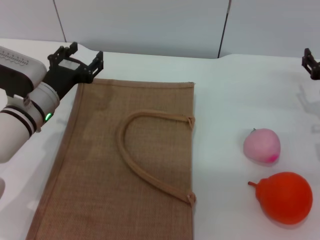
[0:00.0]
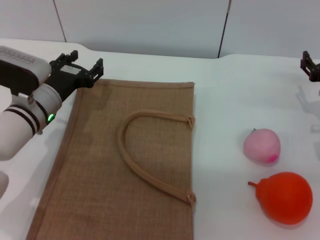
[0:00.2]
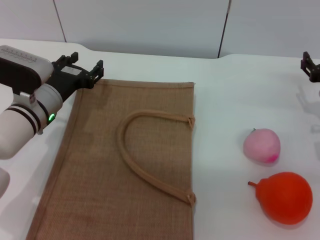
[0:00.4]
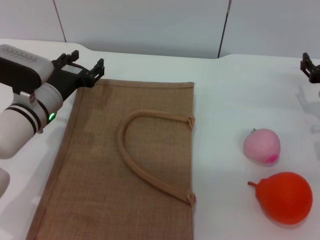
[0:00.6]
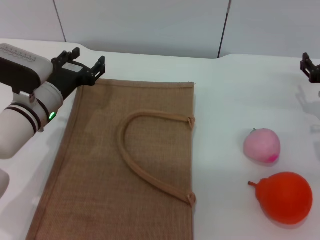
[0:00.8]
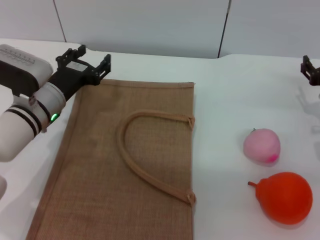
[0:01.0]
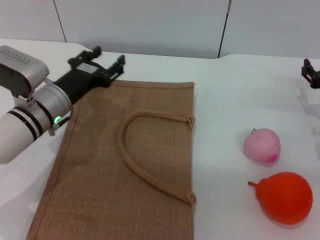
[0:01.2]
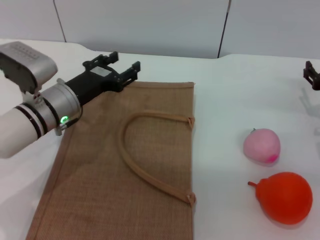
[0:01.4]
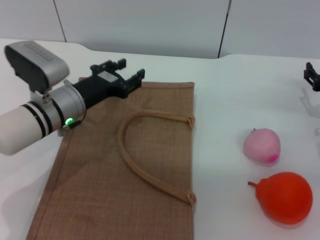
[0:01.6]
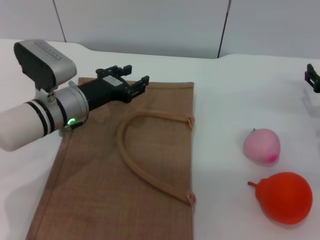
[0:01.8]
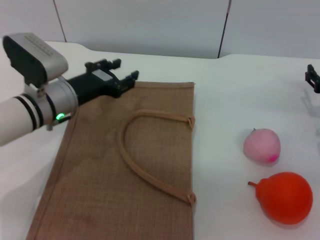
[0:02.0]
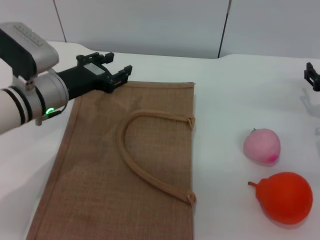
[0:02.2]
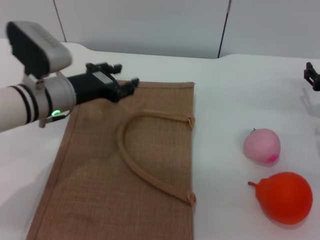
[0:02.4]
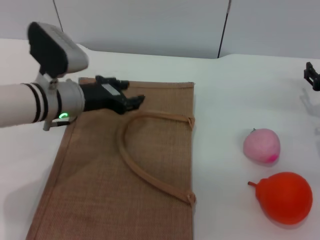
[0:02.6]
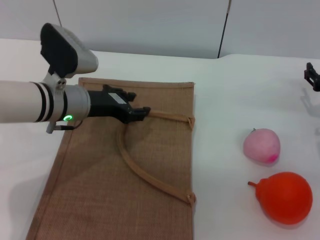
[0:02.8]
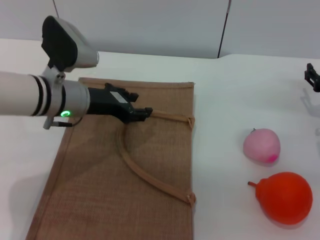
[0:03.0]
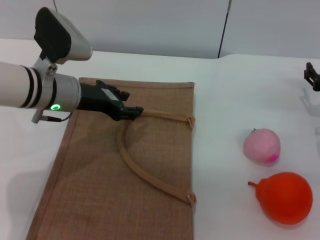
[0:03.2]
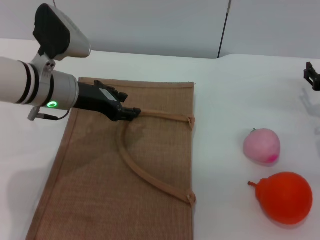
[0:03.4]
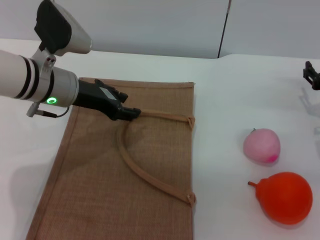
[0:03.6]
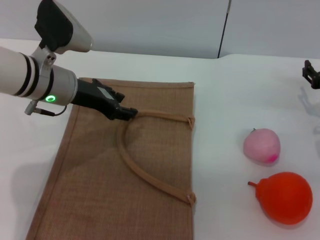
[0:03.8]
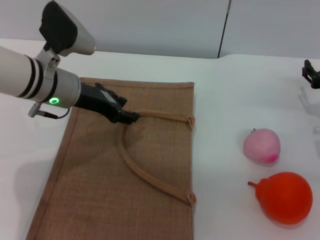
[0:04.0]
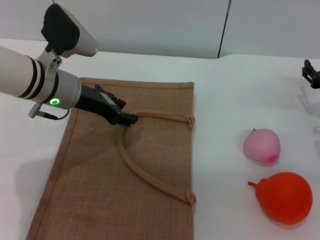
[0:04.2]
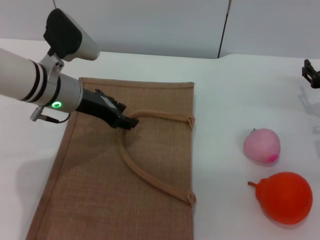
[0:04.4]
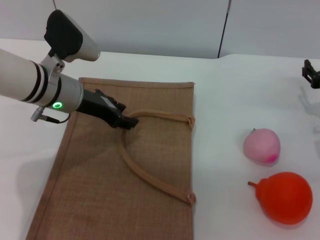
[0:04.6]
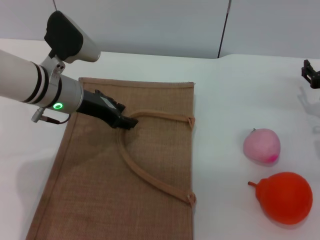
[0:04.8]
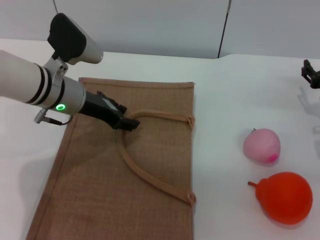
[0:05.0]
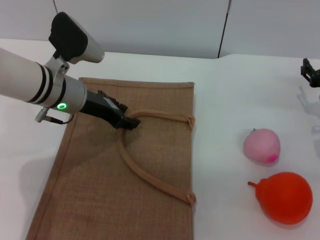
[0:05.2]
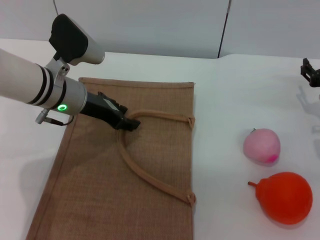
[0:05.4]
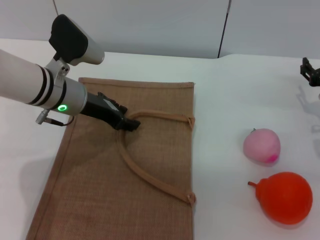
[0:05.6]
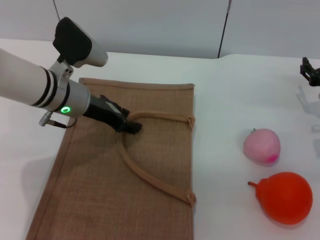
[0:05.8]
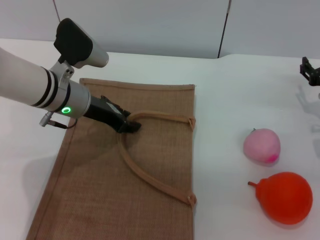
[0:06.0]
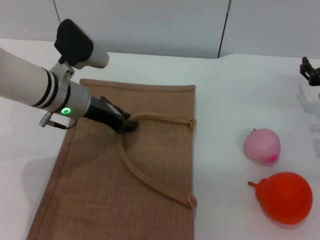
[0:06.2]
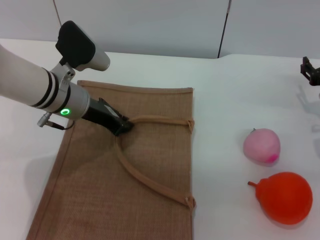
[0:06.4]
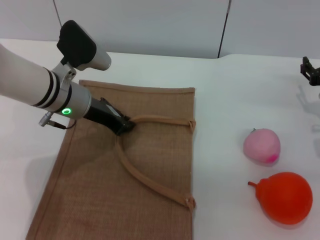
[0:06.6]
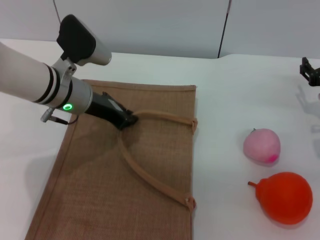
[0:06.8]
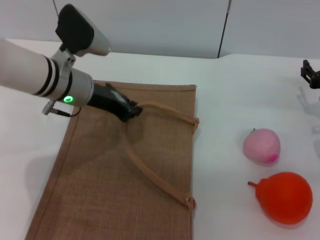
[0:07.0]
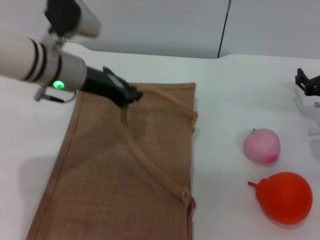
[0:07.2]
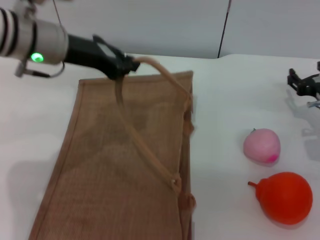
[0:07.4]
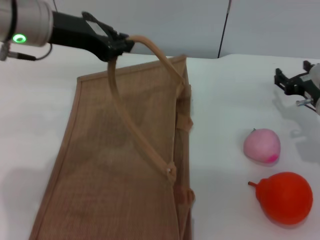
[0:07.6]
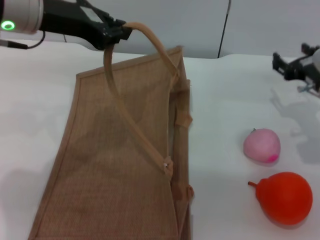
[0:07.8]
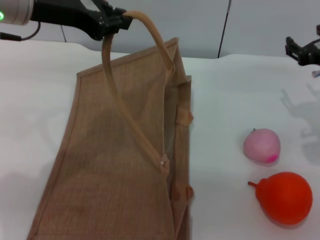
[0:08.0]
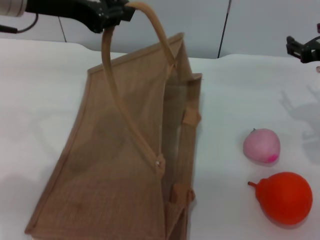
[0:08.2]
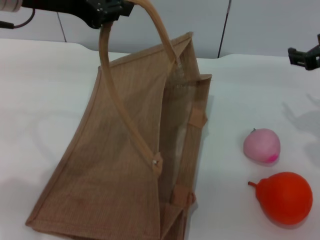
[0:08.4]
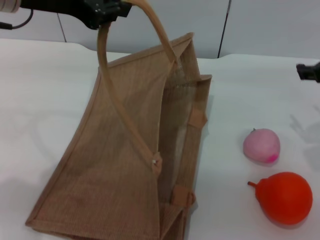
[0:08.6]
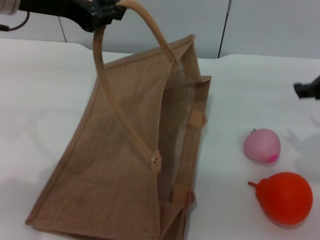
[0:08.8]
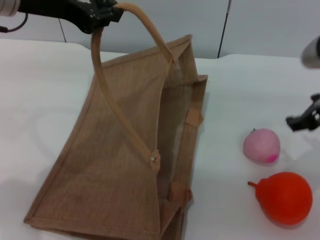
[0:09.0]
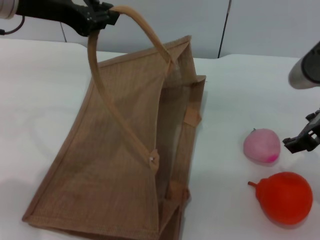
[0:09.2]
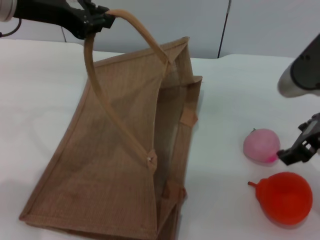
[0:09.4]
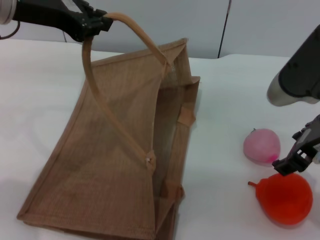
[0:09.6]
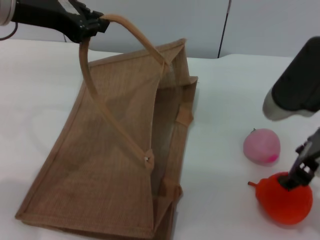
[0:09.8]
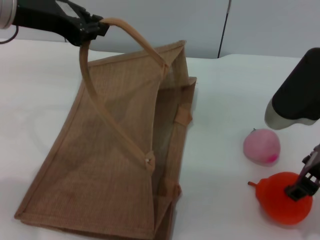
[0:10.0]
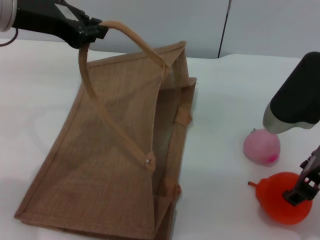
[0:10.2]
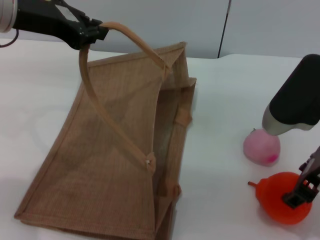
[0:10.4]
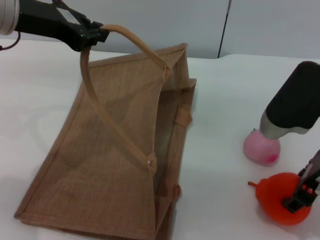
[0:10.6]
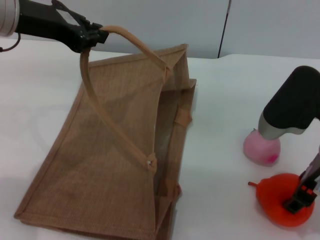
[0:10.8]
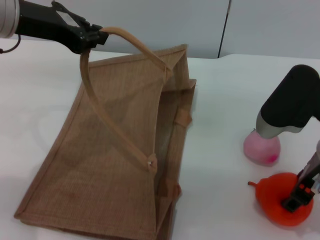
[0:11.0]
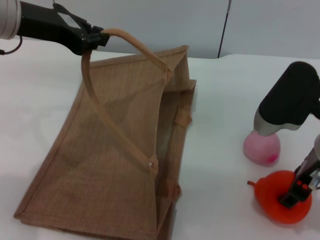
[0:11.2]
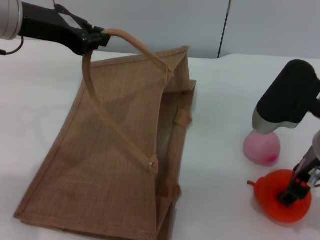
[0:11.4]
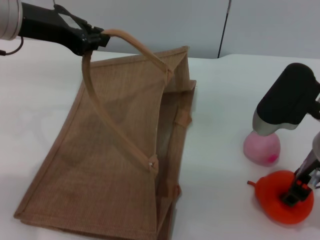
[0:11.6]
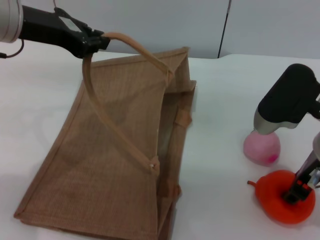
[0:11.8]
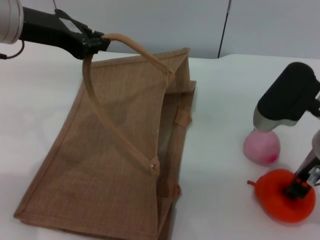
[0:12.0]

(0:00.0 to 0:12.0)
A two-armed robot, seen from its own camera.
Task of the whole recording: pick up the orange and peach from the table and place it in the brown handbag.
Step, 0:00.0 - 0:07.6: Lift the woven bag with the left gripper to open it.
0:03.0 - 0:06.0: The grippers move only a little.
0:06.0 - 0:07.6: The left gripper travels upward by roughly 15 cm, and closes.
0:07.6 - 0:09.0: The left gripper ends up roughly 5 cm from where it was, while the right gripper travels upward and backward by roughly 15 cm.
0:09.0 - 0:10.4: The right gripper ends up about 5 cm from where it was.
0:10.4 - 0:12.0: The grippers make only small movements.

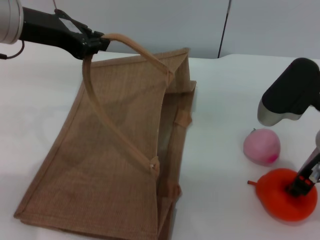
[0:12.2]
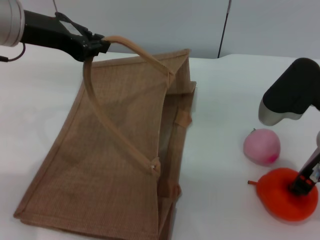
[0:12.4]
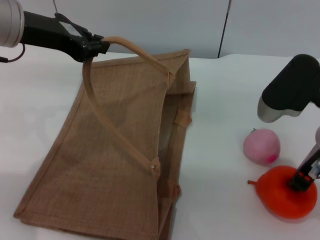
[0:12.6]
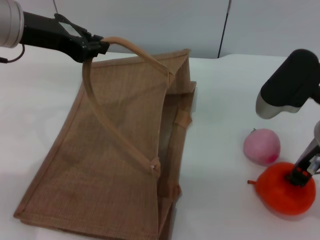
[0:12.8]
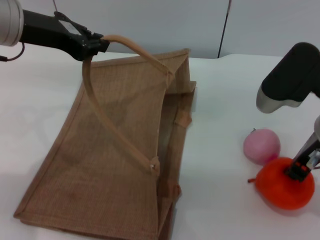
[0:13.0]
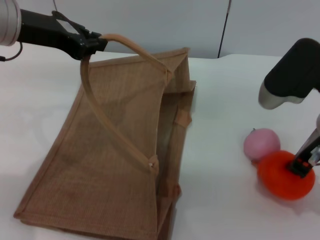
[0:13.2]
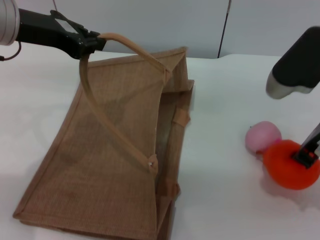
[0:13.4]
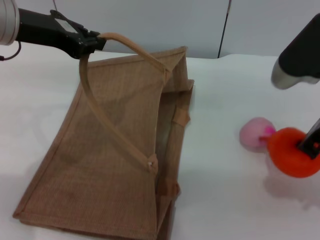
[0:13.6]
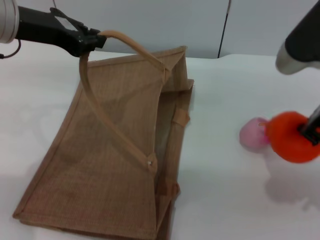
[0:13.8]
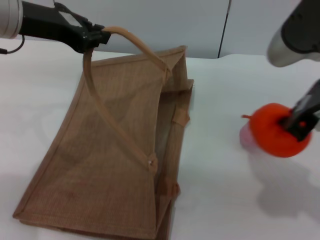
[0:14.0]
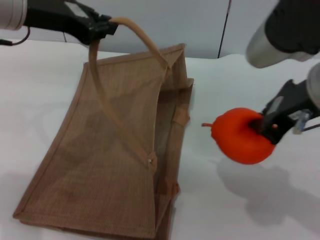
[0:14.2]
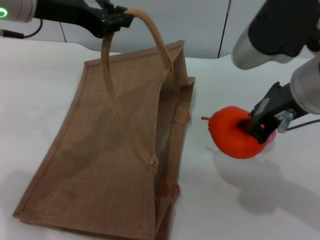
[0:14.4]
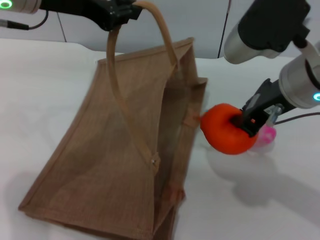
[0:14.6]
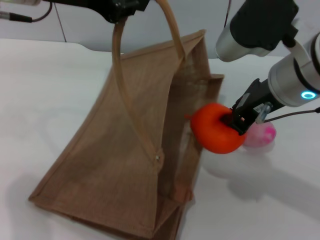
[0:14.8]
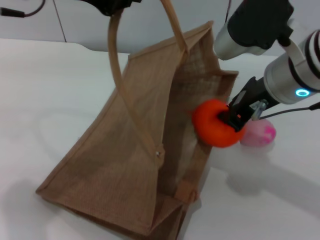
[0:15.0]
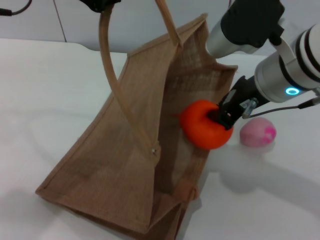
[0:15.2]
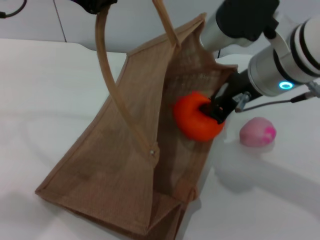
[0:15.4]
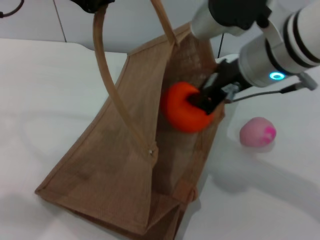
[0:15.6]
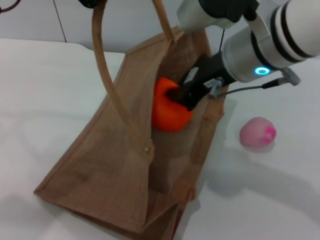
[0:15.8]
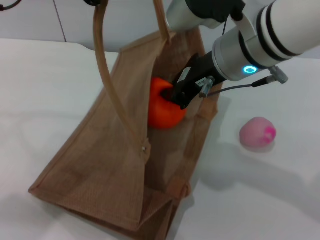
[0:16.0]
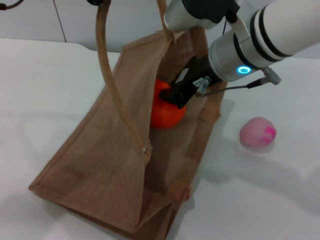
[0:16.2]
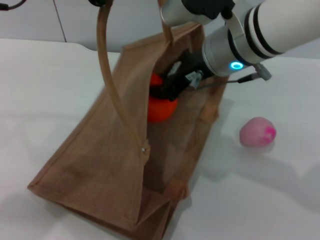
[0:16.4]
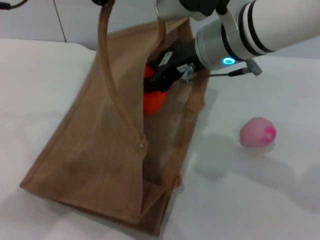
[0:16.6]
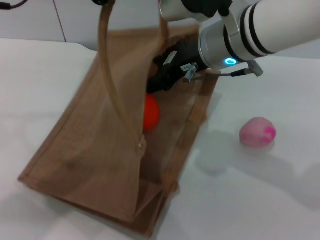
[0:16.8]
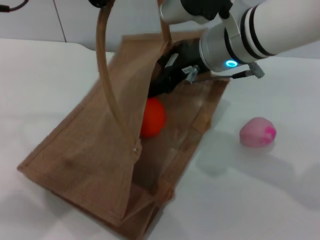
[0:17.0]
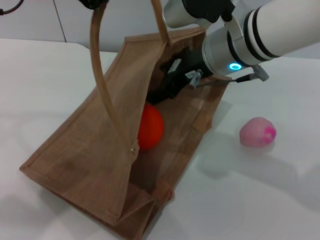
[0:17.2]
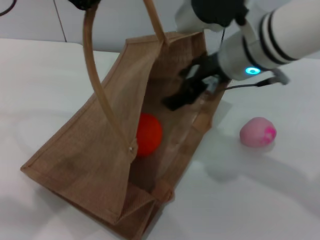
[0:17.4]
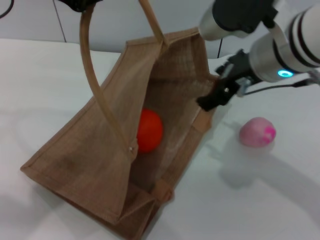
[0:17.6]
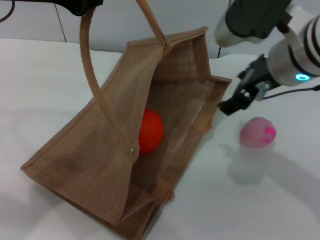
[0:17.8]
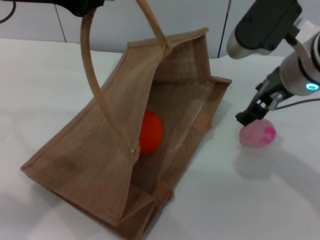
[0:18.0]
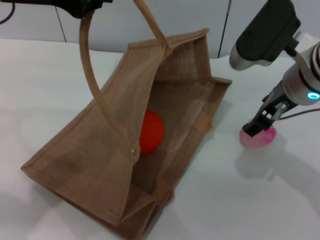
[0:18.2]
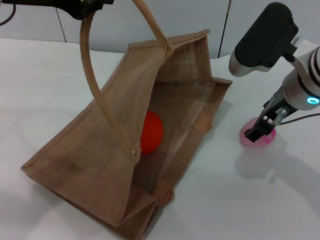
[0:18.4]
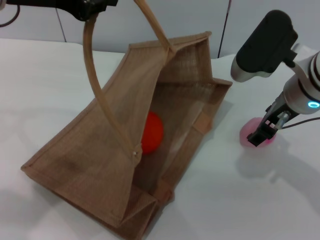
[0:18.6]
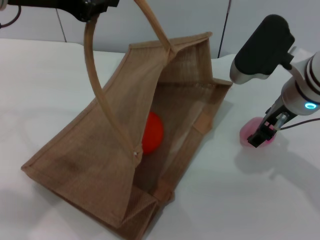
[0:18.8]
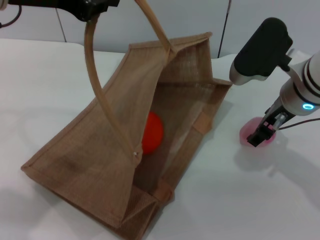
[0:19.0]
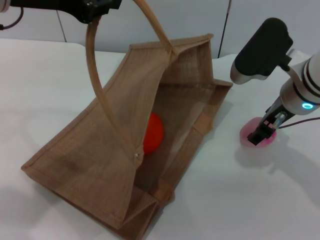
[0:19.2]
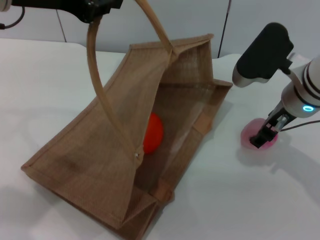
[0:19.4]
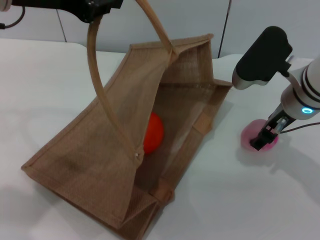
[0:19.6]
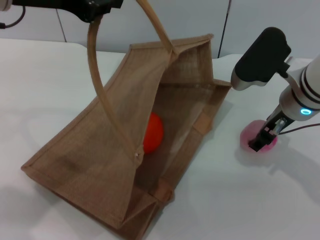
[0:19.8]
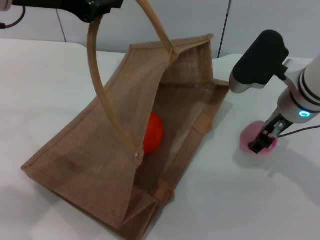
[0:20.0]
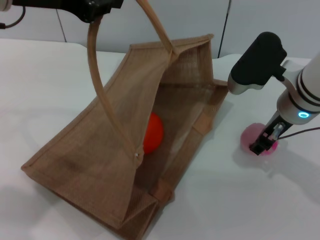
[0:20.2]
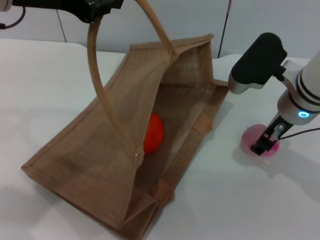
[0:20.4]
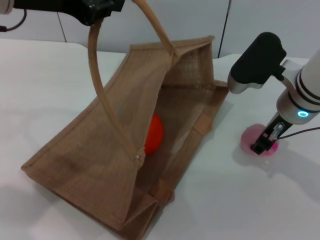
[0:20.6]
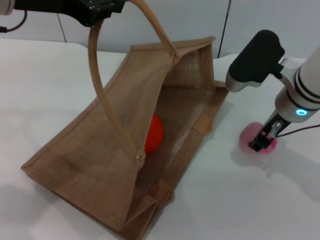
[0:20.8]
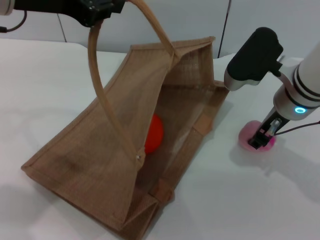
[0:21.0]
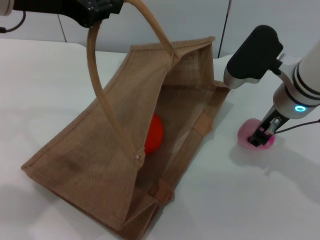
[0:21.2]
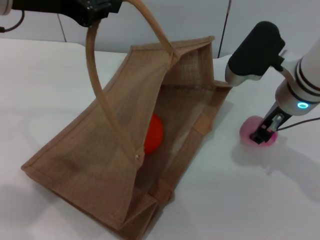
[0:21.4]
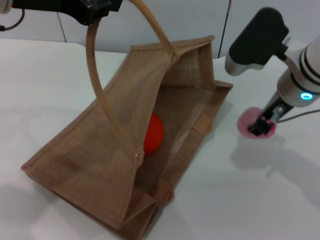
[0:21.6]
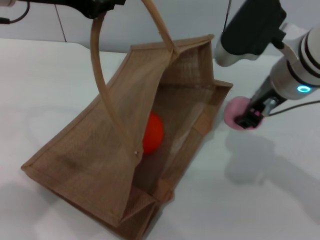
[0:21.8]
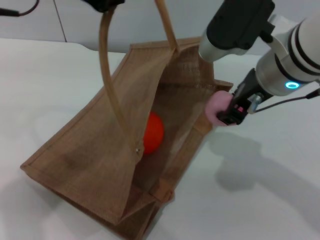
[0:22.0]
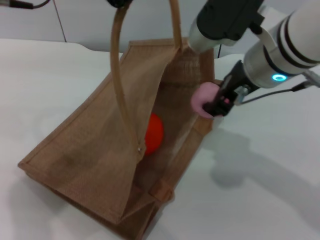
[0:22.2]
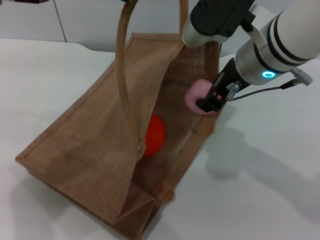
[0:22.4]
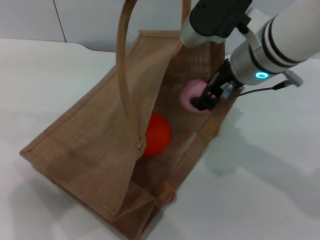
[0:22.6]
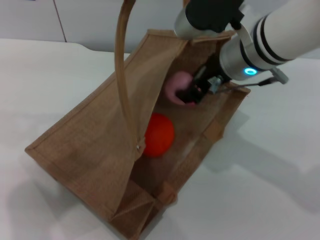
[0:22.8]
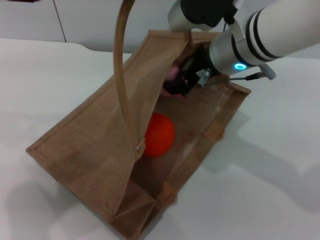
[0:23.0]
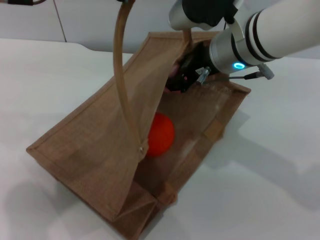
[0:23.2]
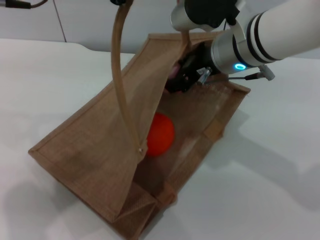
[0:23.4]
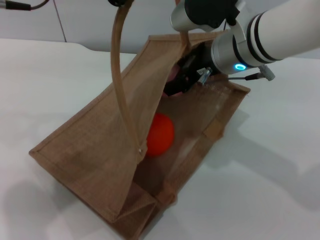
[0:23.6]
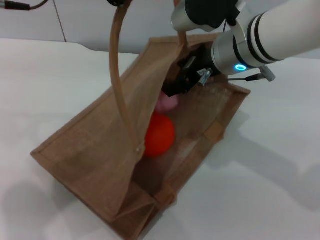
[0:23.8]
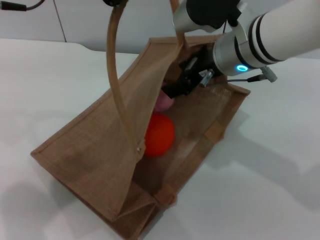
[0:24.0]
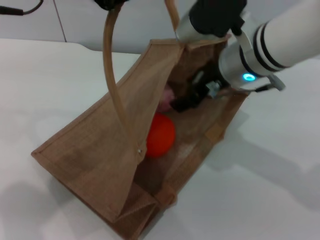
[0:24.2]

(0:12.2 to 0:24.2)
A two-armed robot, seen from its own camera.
Task of the whole recording: pick up the orange and peach from the table and place it in the brown handbag.
Step, 0:13.6 - 0:17.2: Place the orange into the woven bag with the right gripper.
Step, 0:17.6 - 0:21.6: Pick up the peach with the right gripper.
Step, 0:21.8 - 0:24.0: Place the peach into the woven bag with the right gripper.
0:12.2 - 0:13.8: The right gripper moves upward, some 5 cm, and closes up.
0:13.8 - 0:15.2: The left gripper heads upward, covering approximately 5 cm. The right gripper shifts roughly 5 cm to the left.
0:15.2 - 0:16.6: The right gripper goes approximately 5 cm to the left.
0:16.6 - 0:18.2: The right gripper travels to the right by about 10 cm, and opens up.
0:18.2 - 0:19.8: The right gripper moves downward, roughly 5 cm.
0:19.8 - 0:21.2: The right gripper closes its fingers.
0:21.2 - 0:22.6: The left gripper moves about 5 cm. The right gripper moves to the left and upward, approximately 10 cm.
0:22.6 - 0:24.2: The right gripper opens.
